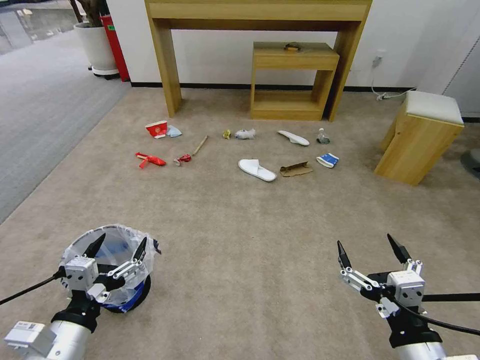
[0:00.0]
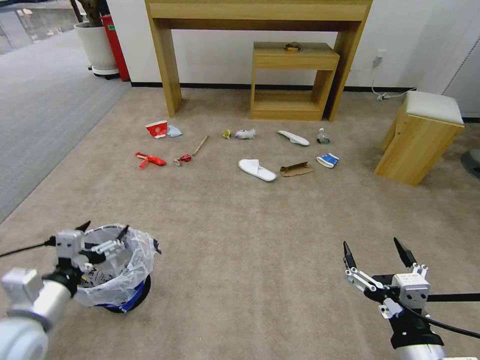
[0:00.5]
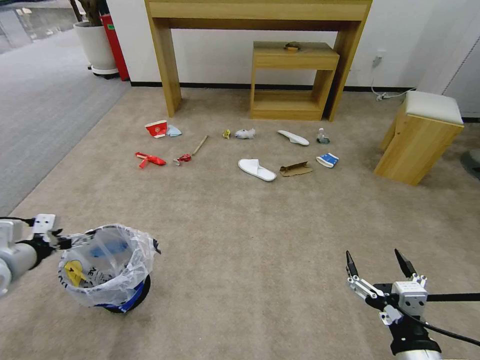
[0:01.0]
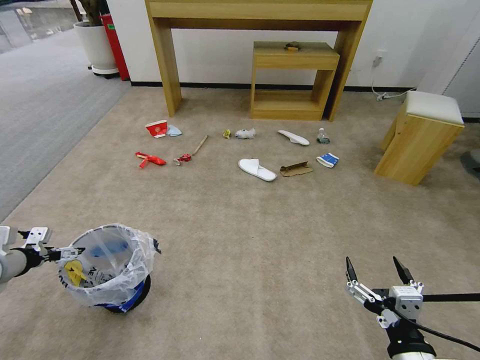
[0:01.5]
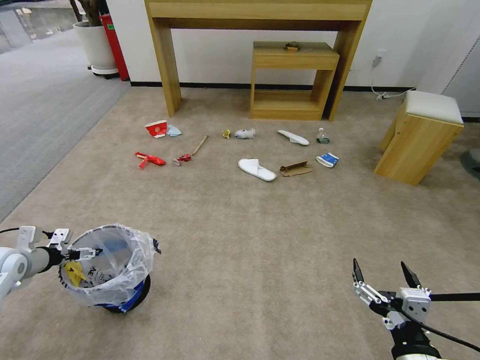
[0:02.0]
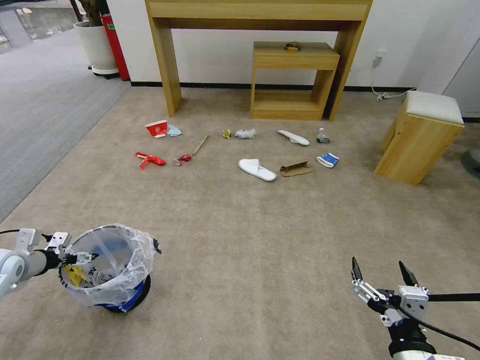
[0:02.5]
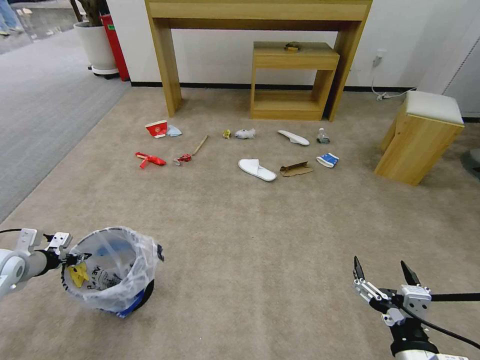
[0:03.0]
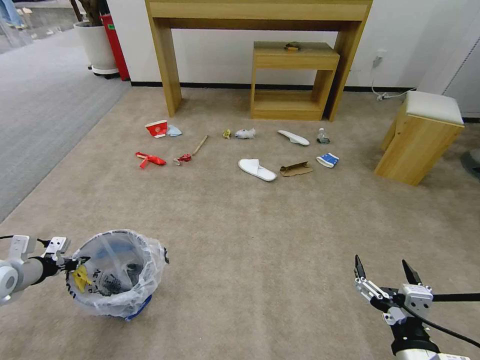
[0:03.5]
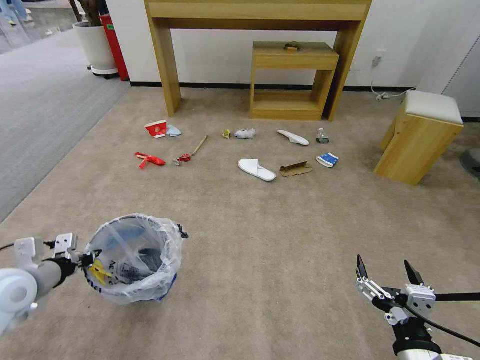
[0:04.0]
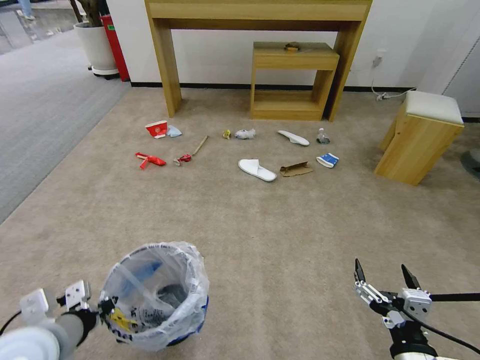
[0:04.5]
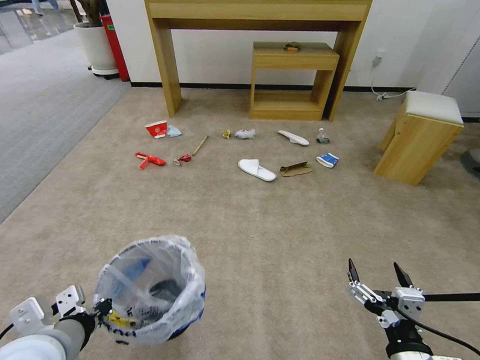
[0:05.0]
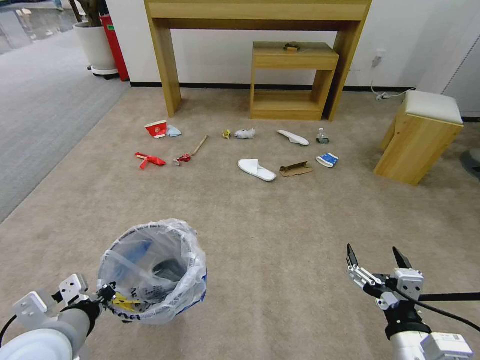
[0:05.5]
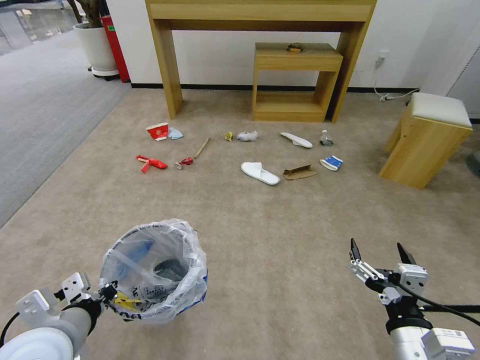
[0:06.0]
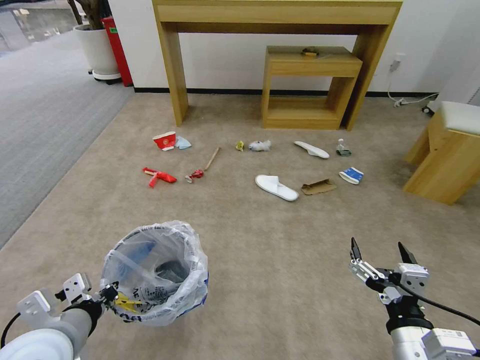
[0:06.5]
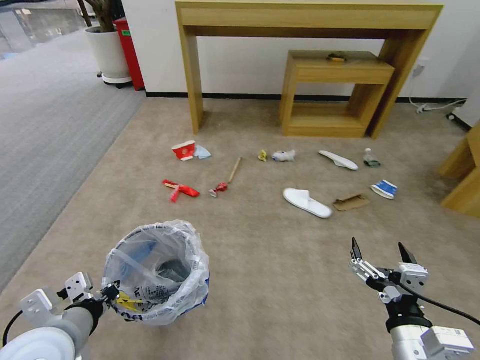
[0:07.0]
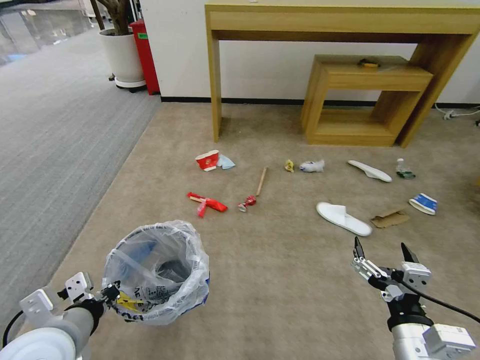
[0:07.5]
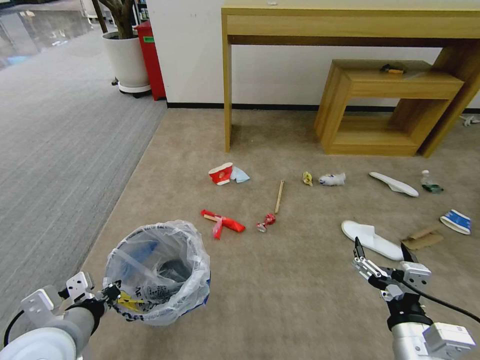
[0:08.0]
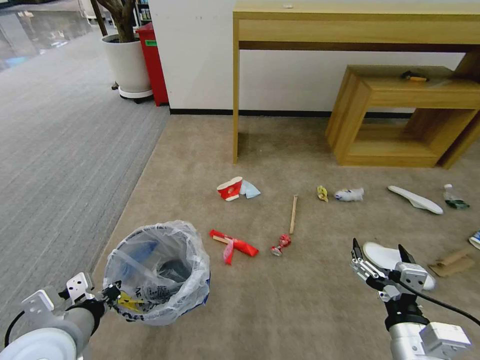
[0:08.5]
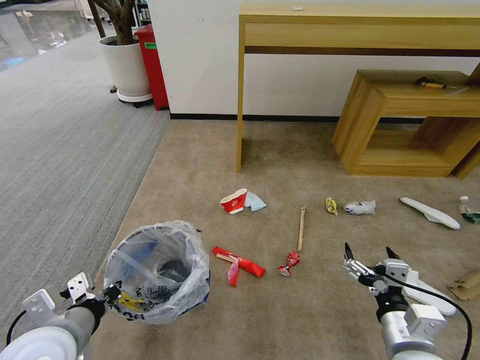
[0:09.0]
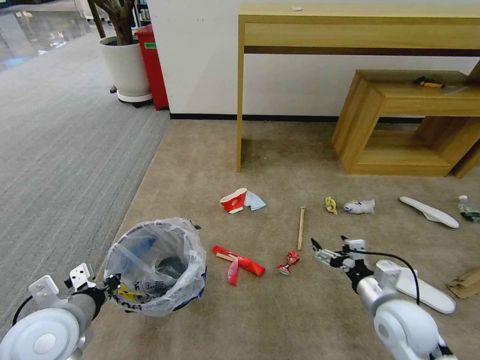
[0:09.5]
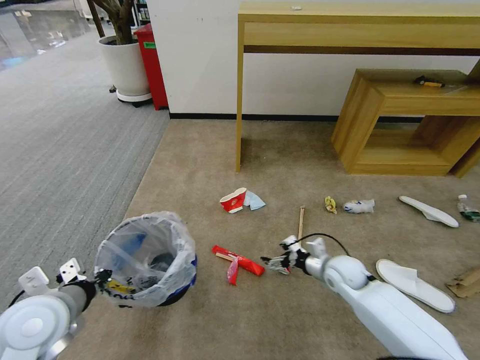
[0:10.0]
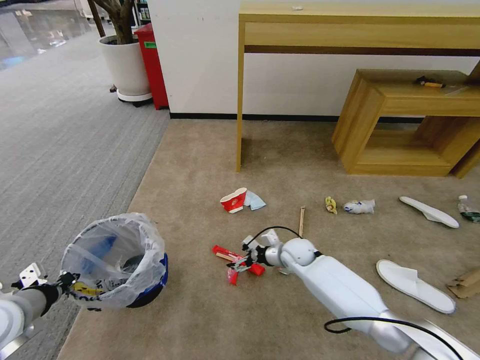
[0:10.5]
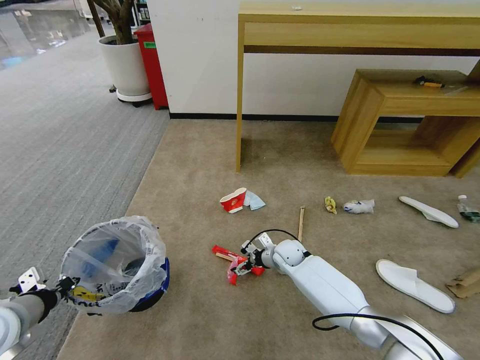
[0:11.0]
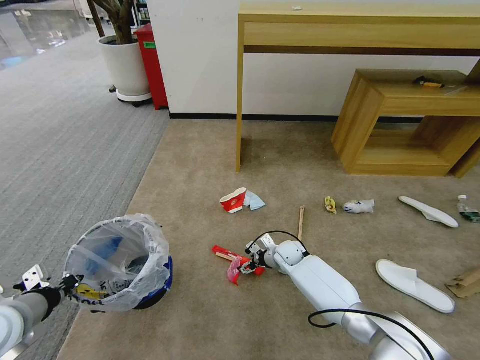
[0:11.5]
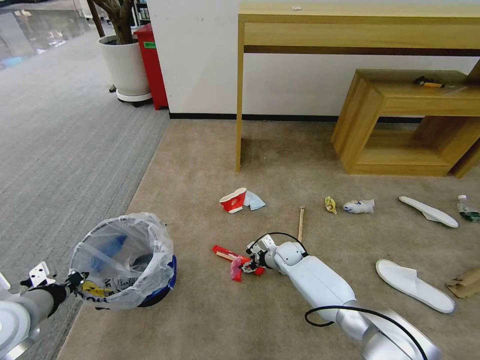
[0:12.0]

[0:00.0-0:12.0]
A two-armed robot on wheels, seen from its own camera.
Task of the whole recording: Pick up the trash bin and place the garbage on the floor into it.
0:02.0 to 0:04.0: The left gripper moves to the right and backward, approximately 10 cm, and closes its fingers.
0:04.0 to 0:06.0: The left gripper goes some 20 cm to the right and backward.
0:08.0 to 0:10.0: The right gripper travels forward and downward by approximately 30 cm. Meanwhile the left gripper is displaced forward by some 5 cm.
0:10.0 to 0:12.0: The right gripper travels forward, to the left and downward by about 20 cm. Meanwhile the left gripper heads to the left, covering approximately 5 cm.

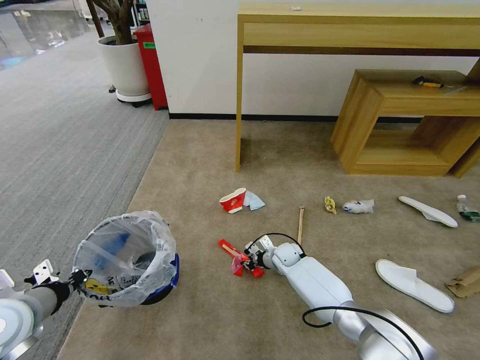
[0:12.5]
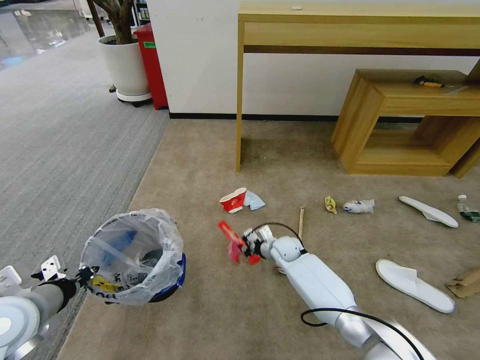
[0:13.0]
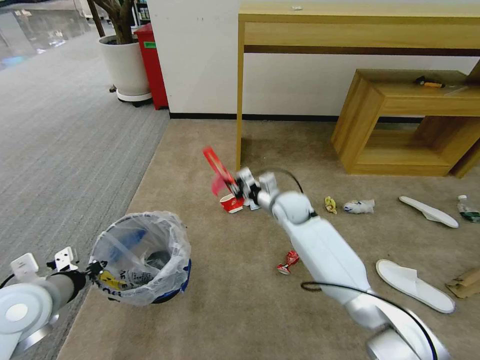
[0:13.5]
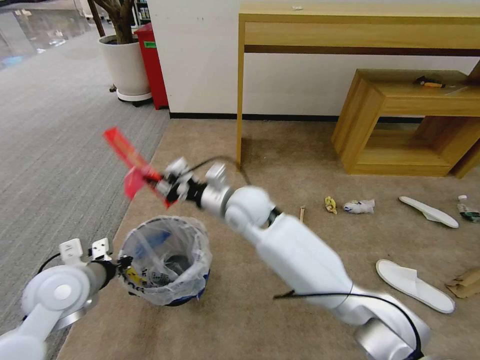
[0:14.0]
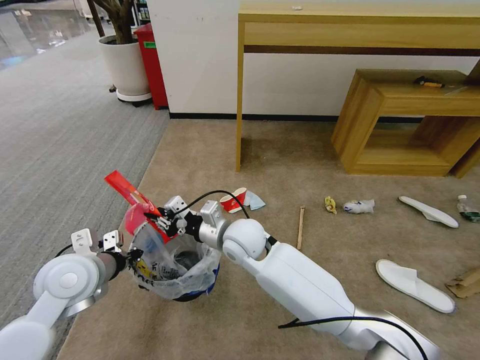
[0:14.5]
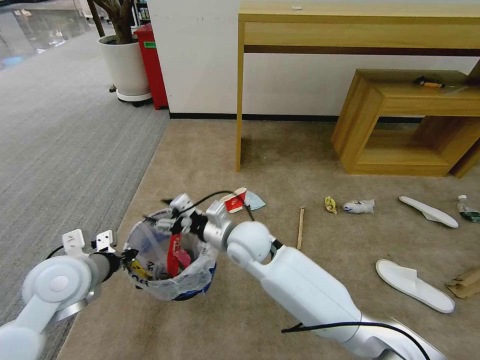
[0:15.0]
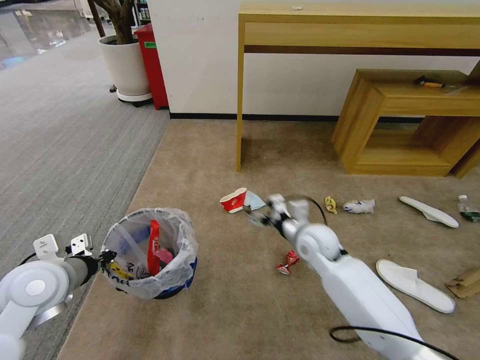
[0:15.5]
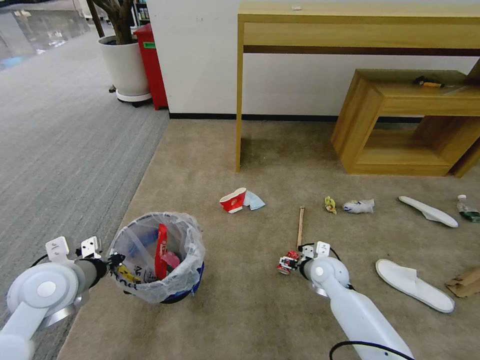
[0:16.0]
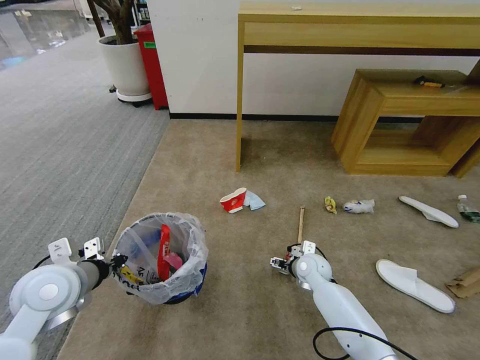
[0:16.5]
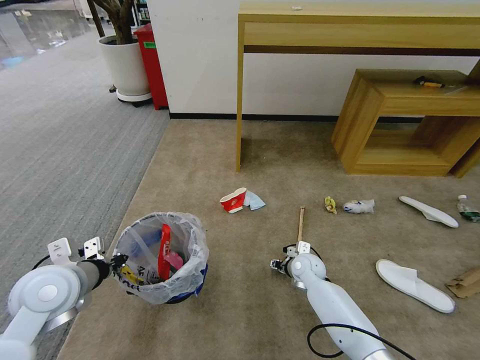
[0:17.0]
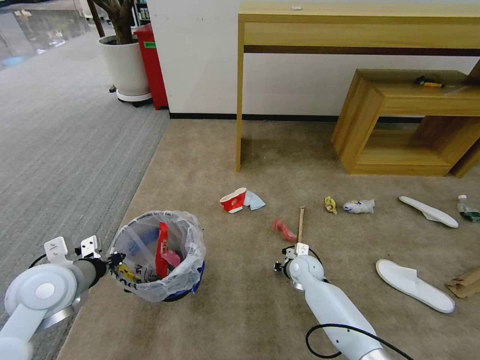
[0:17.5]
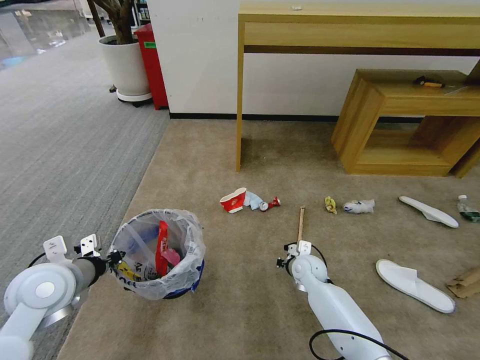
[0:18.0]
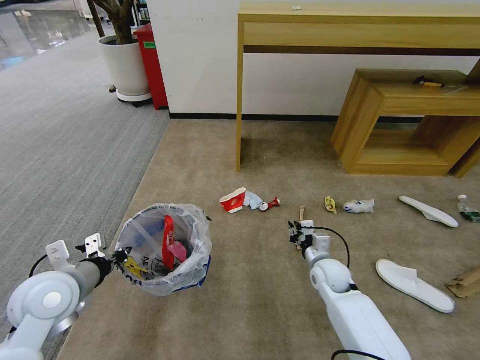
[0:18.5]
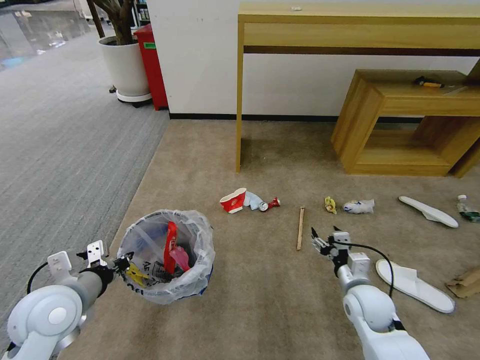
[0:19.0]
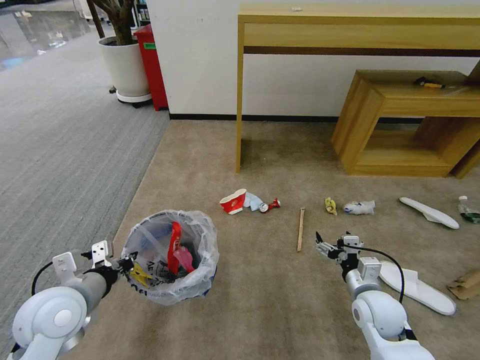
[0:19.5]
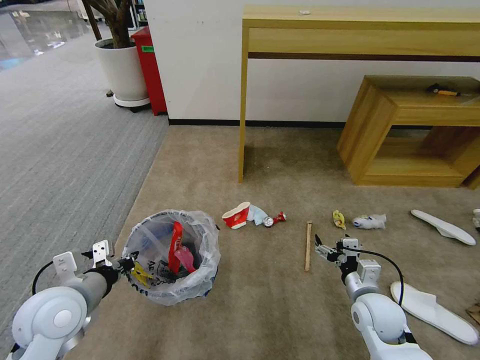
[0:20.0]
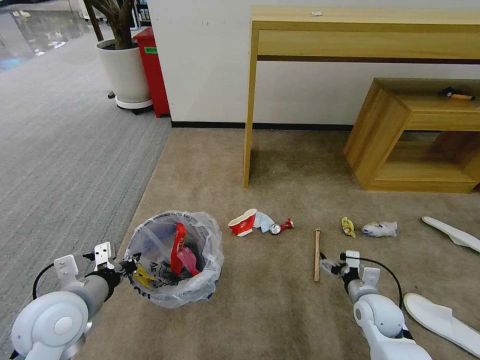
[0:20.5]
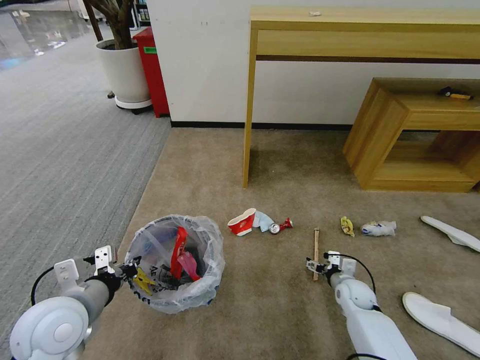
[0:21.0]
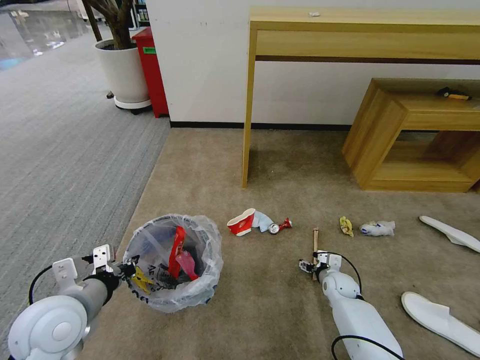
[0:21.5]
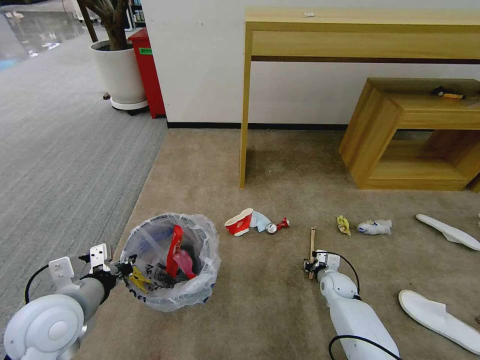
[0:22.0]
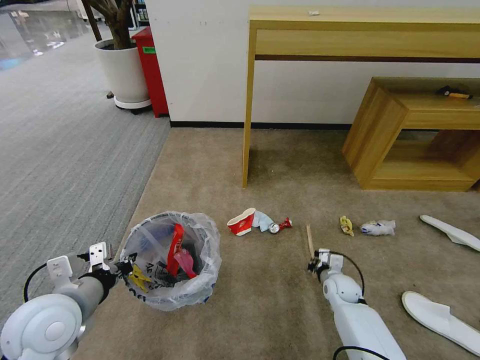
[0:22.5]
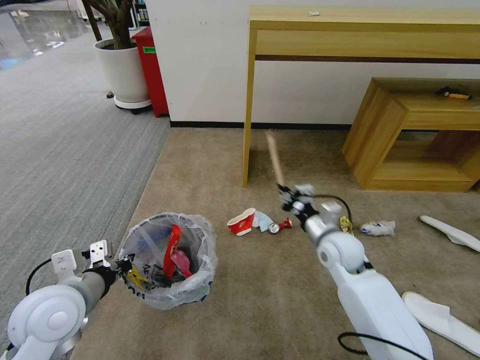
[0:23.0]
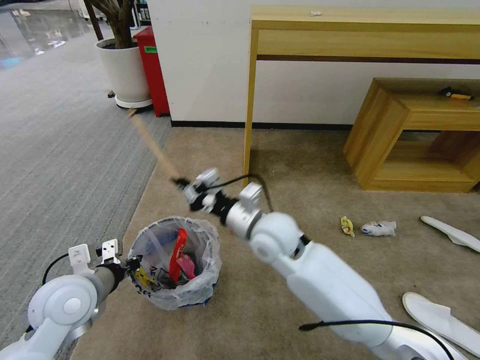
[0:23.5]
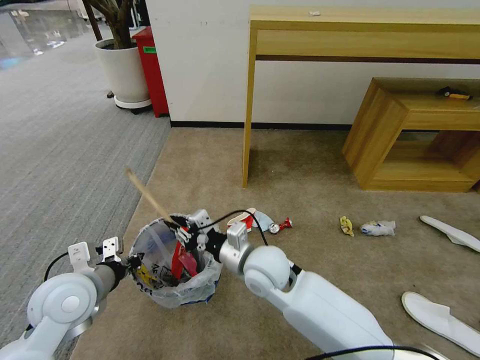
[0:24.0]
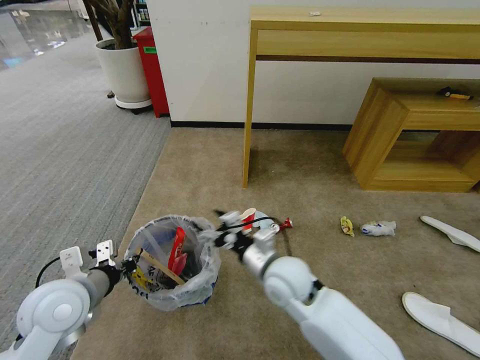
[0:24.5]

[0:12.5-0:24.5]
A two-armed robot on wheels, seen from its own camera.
Task of the whole recording: Pick up the trash bin and place the garbage on the floor into it.
0:12.5 to 0:14.5: The right gripper is displaced upward and to the left by approximately 30 cm; the left gripper travels to the right and forward by about 10 cm.
0:14.5 to 0:16.5: The right gripper moves to the right and downward, approximately 30 cm, and opens its fingers.
0:16.5 to 0:18.5: The right gripper changes place by approximately 5 cm, and closes its fingers.
0:18.5 to 0:20.5: The right gripper shifts about 15 cm backward and to the right, and opens up.
0:20.5 to 0:22.5: The right gripper is displaced forward and downward by about 10 cm, and closes up.
0:22.5 to 0:24.5: The right gripper goes roughly 30 cm to the left and upward, and opens.

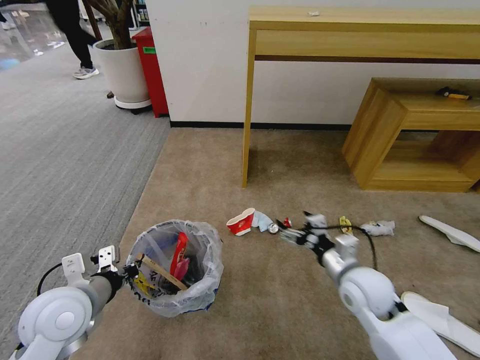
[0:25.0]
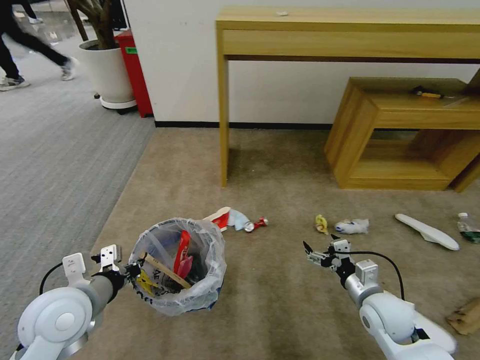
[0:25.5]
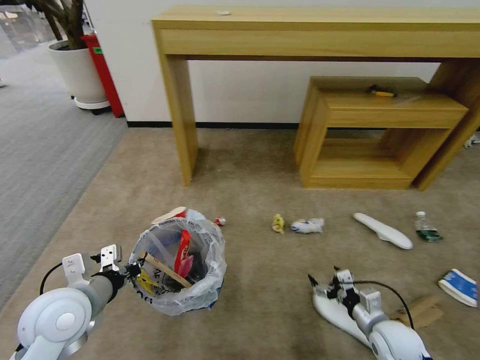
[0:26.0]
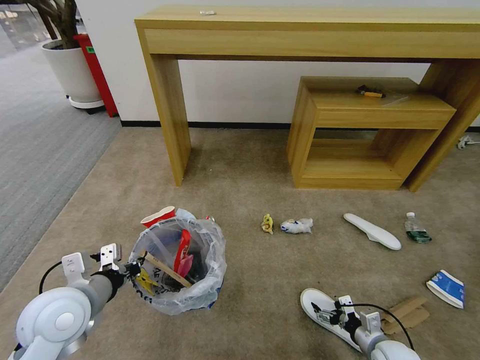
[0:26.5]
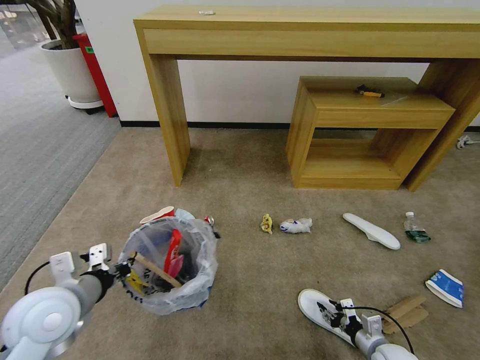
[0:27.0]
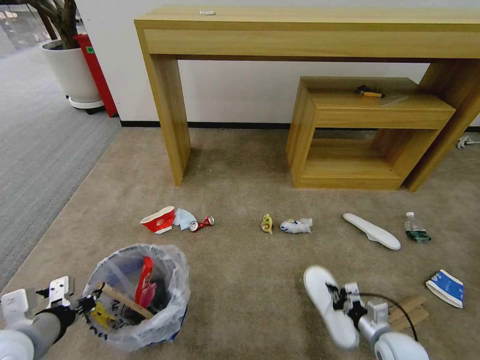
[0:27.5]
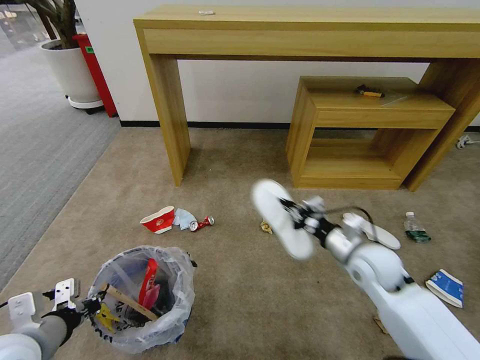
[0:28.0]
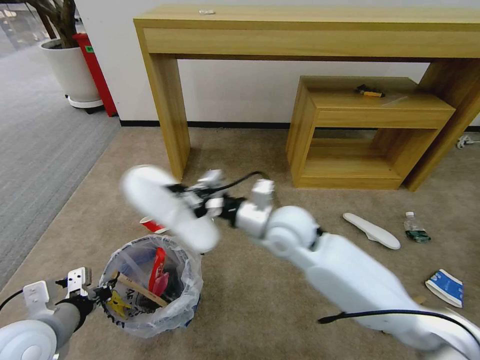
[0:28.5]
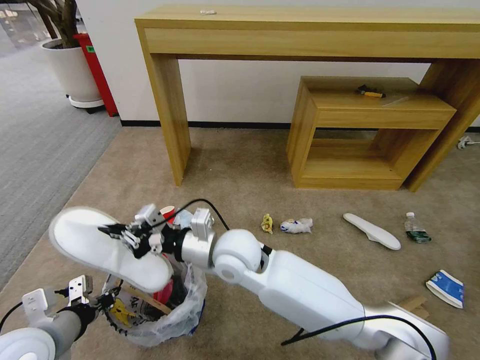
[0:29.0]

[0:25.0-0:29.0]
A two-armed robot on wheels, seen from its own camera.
Task of the whole recording: Pick up the trash bin and place the garbage on the floor into it.
0:25.0 to 0:27.0: The right gripper is displaced downward, to the right and backward by roughly 25 cm, and closes up.
0:27.0 to 0:29.0: The right gripper goes some 50 cm to the left and upward, and closes its fingers. The left gripper moves backward, approximately 5 cm.
